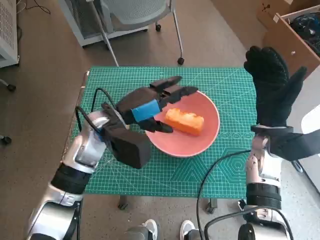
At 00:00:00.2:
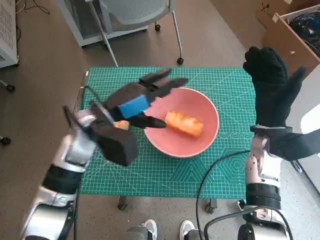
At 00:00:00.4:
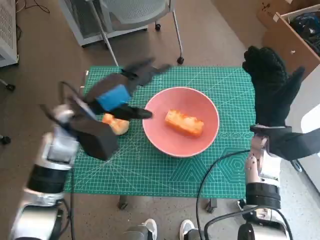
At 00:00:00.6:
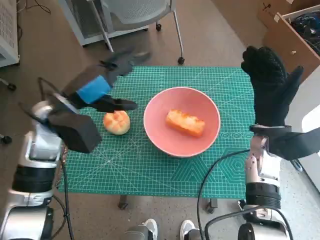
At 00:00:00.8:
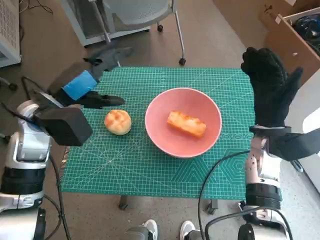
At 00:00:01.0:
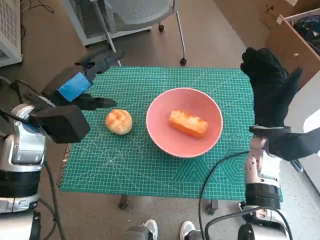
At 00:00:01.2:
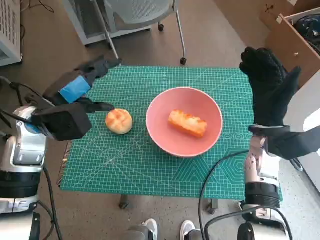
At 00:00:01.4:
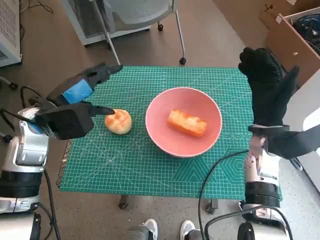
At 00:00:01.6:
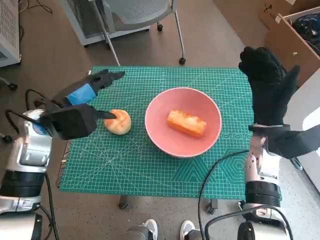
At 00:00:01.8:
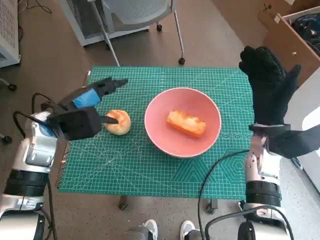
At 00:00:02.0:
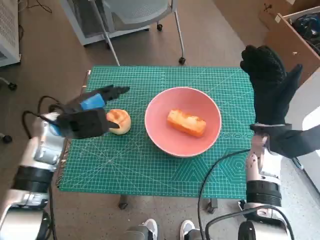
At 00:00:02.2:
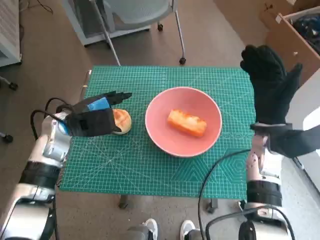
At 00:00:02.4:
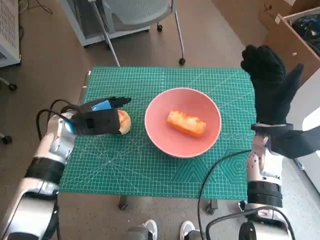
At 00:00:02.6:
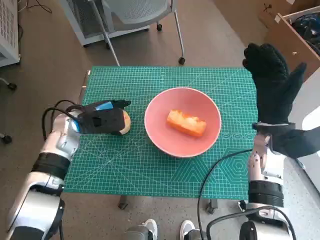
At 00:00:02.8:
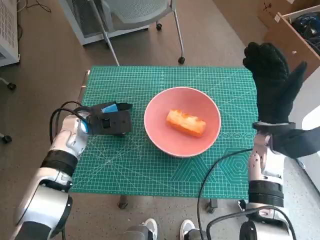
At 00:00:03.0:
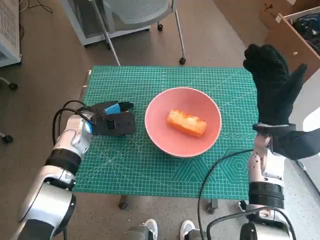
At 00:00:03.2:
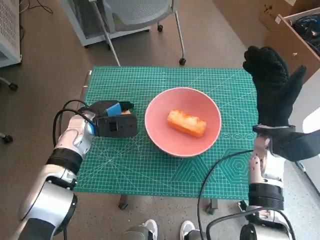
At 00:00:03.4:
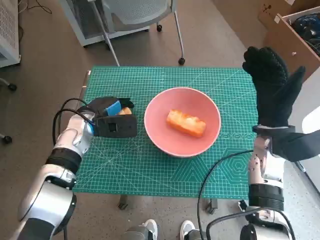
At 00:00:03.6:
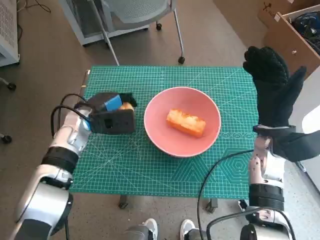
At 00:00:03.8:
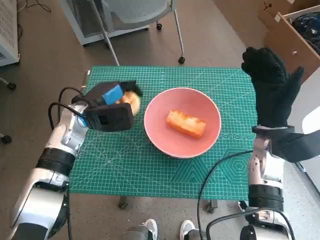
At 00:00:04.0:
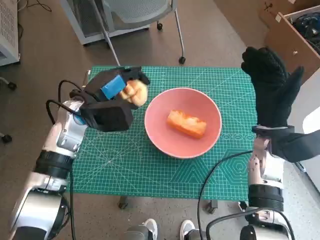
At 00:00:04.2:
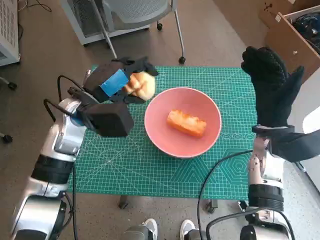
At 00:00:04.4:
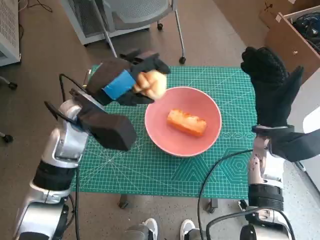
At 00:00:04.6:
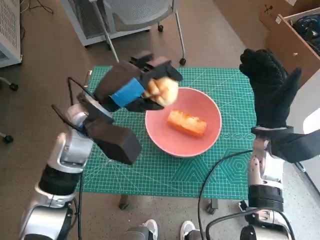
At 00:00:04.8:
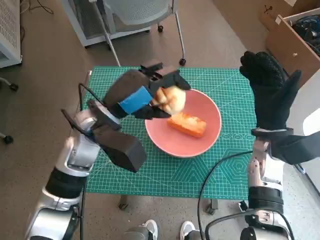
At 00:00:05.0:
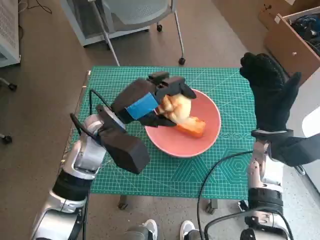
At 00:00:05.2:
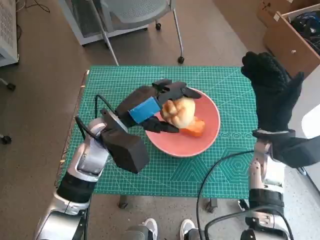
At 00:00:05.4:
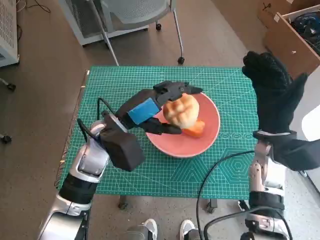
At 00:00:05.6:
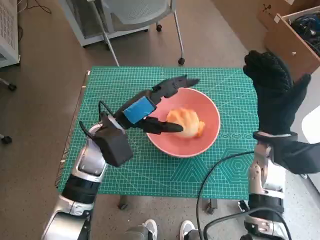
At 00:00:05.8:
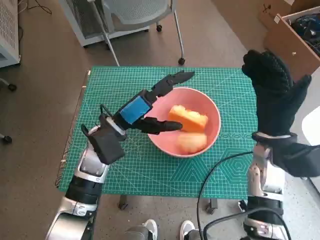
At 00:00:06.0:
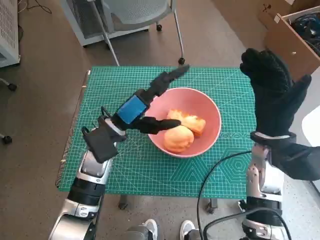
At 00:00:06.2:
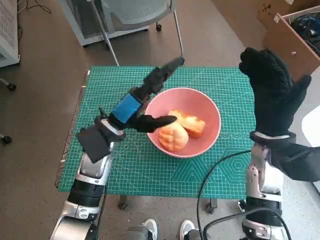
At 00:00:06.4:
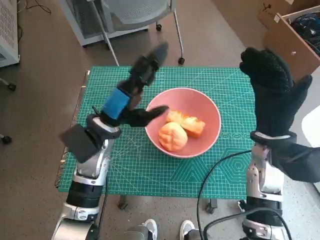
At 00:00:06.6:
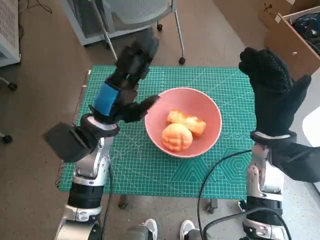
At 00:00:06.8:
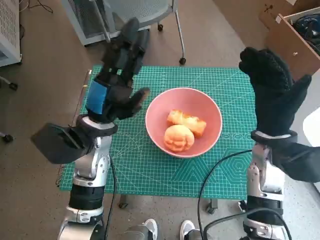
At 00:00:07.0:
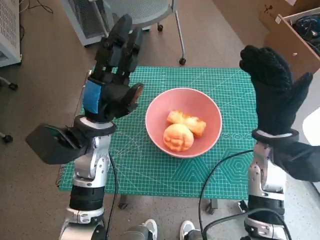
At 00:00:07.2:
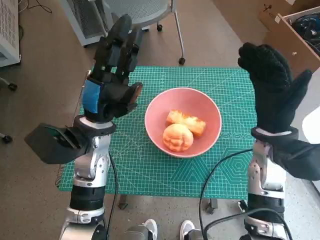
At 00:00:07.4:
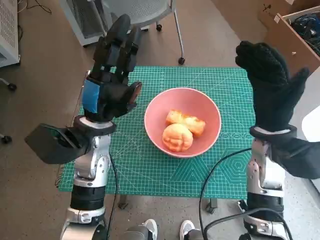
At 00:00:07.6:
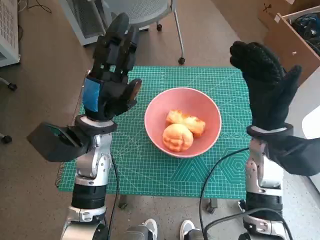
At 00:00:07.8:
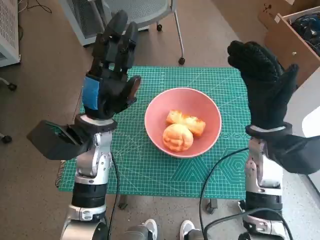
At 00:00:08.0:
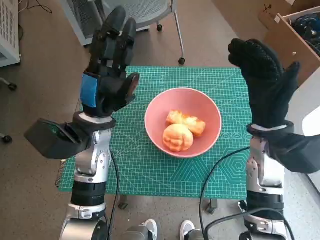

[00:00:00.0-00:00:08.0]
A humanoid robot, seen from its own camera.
Step, 00:00:00.0 to 00:00:03.0: Grasp the round bread with left hand.
Step, 00:00:03.2 to 00:00:05.8: Place the round bread in pink bowl with left hand.
00:00:00.0 to 00:00:01.6: The left hand travels to the left by about 10 cm.
00:00:01.6 to 00:00:03.2: The left hand is displaced downward by some 10 cm.
00:00:03.2 to 00:00:04.8: The left hand goes about 15 cm upward, to the right and backward.
